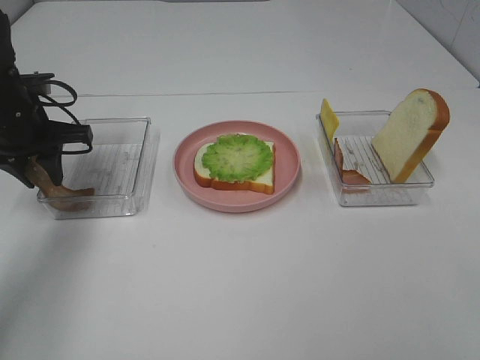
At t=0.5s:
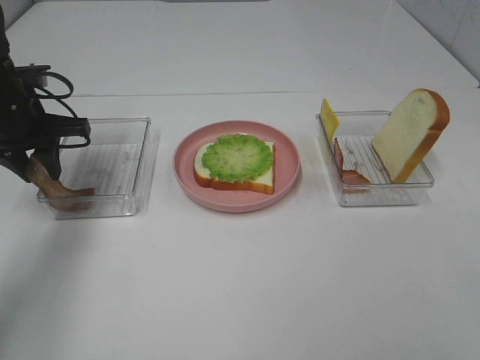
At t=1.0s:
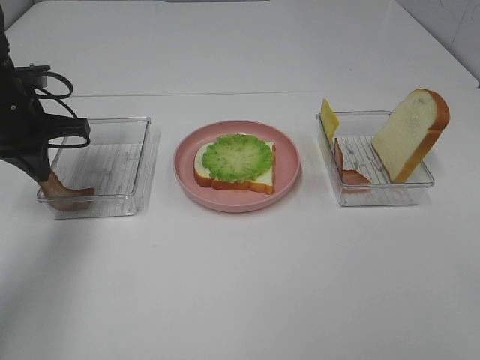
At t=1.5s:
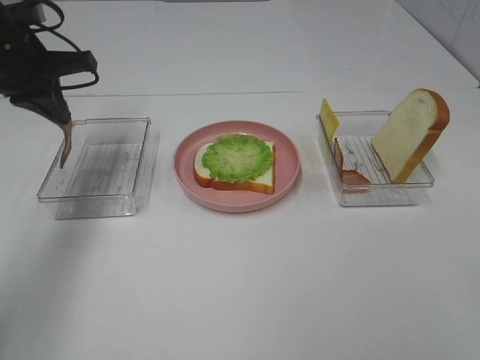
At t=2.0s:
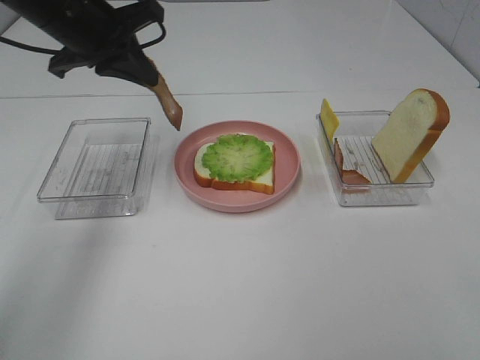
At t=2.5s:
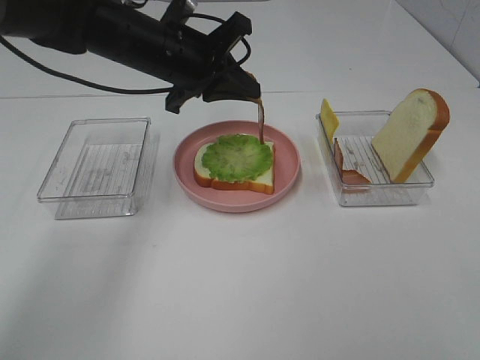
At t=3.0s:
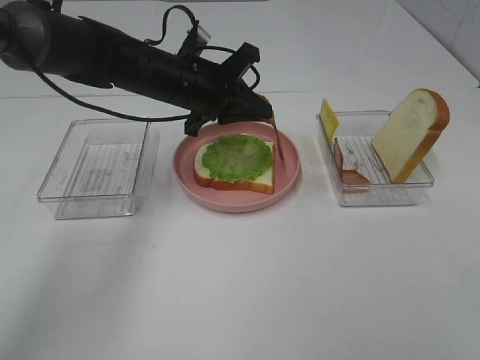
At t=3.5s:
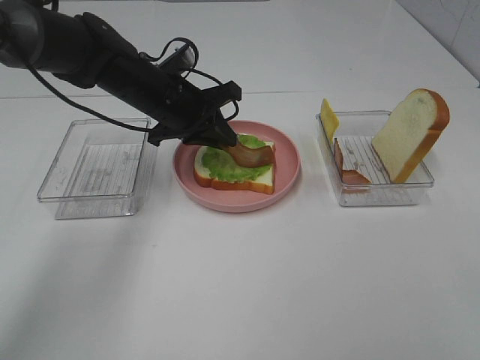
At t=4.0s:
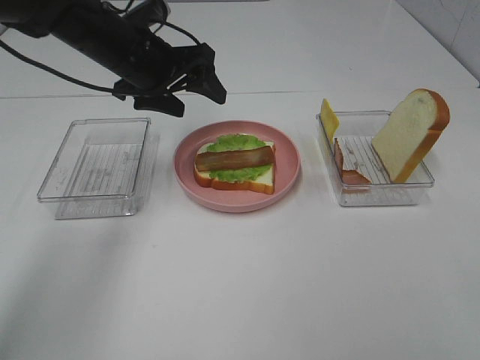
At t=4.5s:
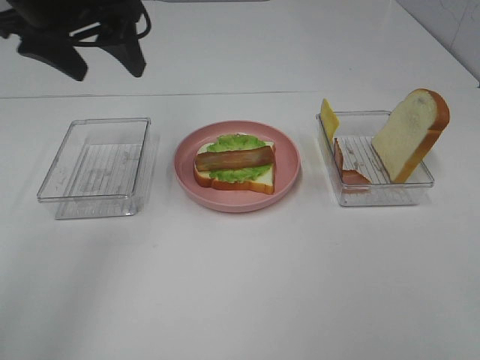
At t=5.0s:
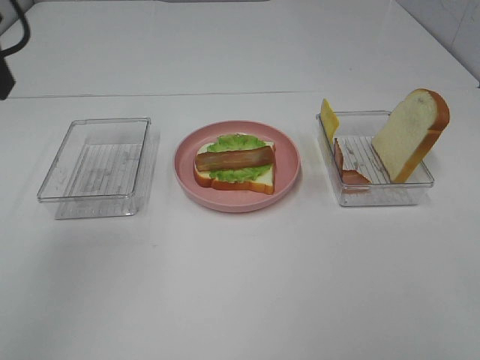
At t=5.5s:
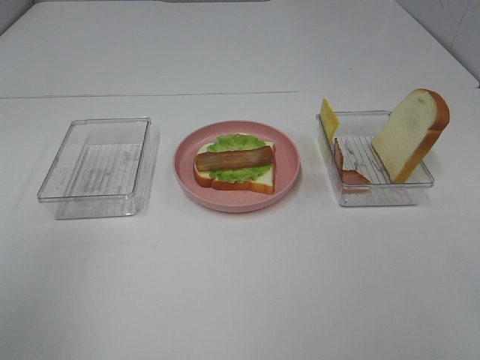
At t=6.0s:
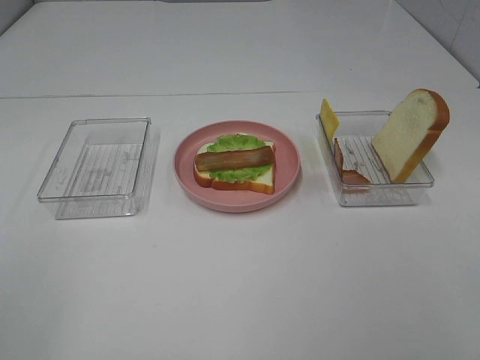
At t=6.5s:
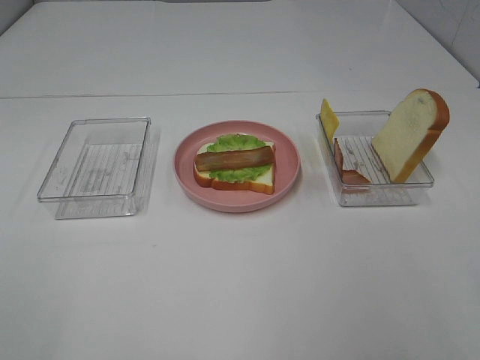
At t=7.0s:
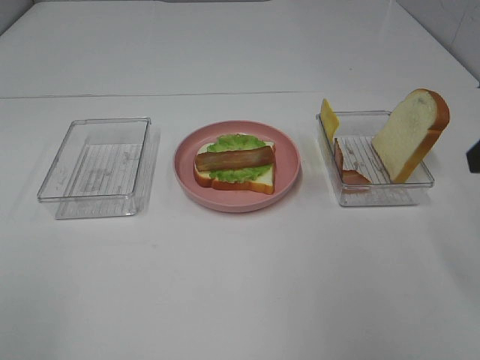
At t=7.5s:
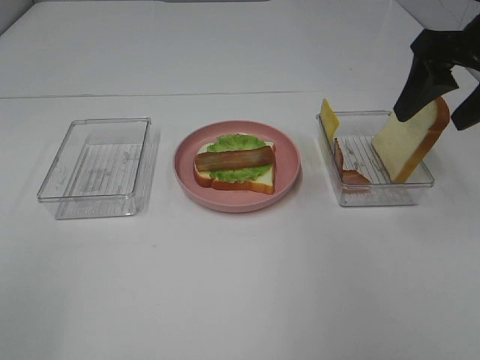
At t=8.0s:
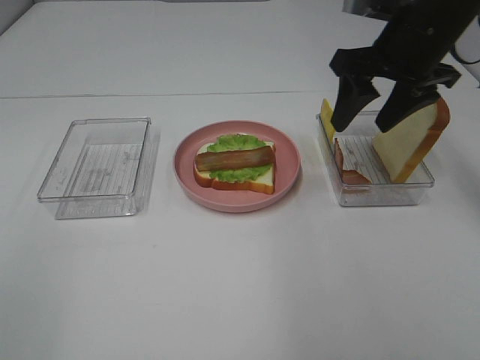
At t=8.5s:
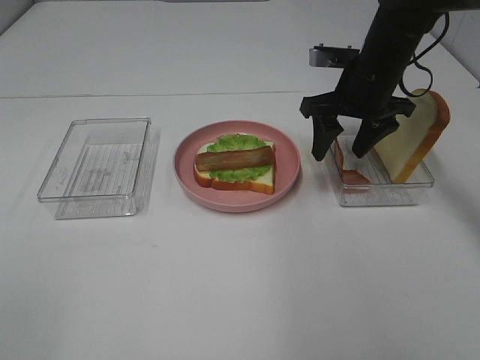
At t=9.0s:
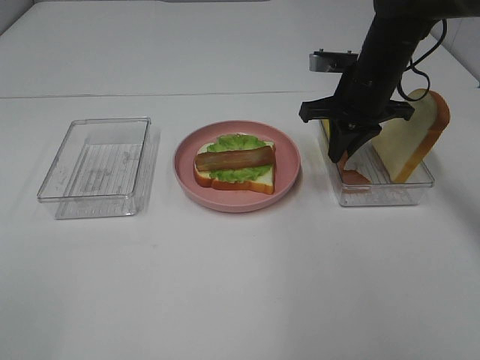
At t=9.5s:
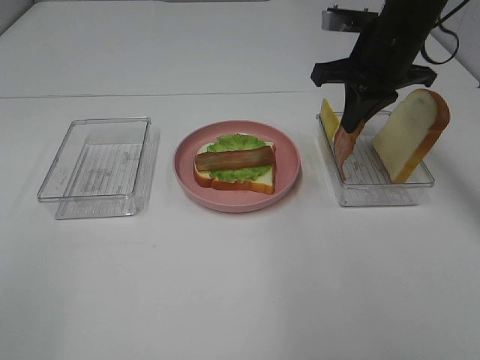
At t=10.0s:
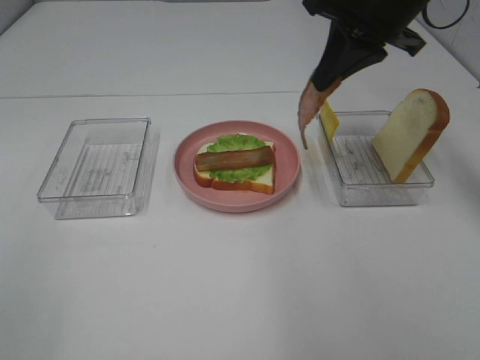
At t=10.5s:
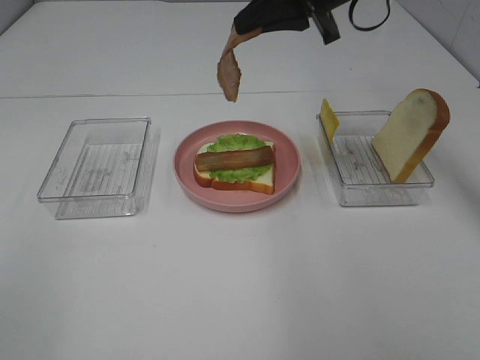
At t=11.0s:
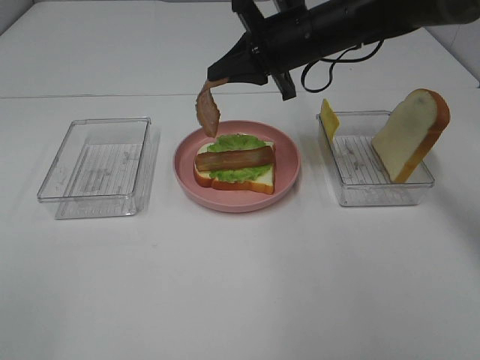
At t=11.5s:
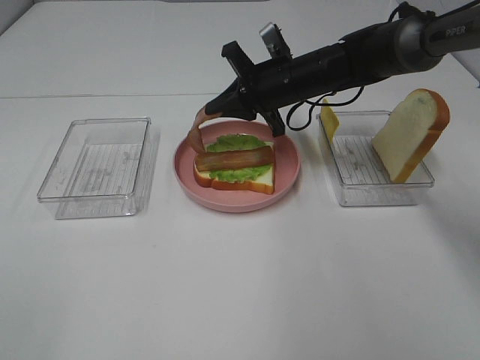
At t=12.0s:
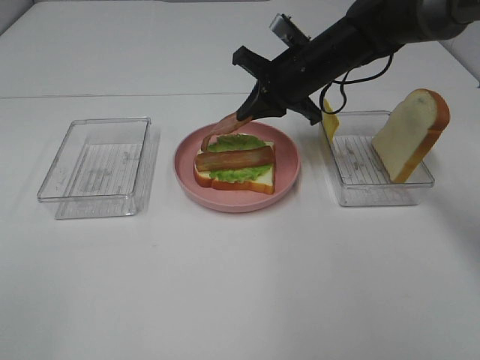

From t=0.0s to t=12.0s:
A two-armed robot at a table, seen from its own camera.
Task of the whole recording: Make sandwiches.
Step, from t=1.5s to t=3.5s: Left hand:place bacon on lettuce slice.
Step, from t=4.0s to t=9.0s: Right hand:grab the bacon.
From t=0.0s to t=2.0s: The left gripper goes approximately 15 cm upward and to the right, and closes.
From t=2.0s to t=4.0s: The left gripper opens its fingers.
From t=4.0s to t=6.0s: The left gripper shifts approximately 40 cm backward and to the left.
From t=6.0s to t=8.0s: The right gripper heads forward, covering approximately 35 cm.
From t=8.0s to t=10.0s: The right gripper closes.
From t=10.0s to t=12.0s: The right gripper heads downward and forward, covering some 15 cm.

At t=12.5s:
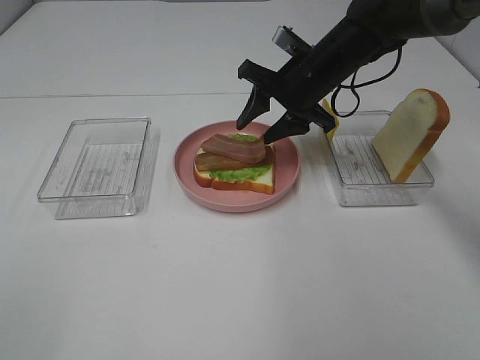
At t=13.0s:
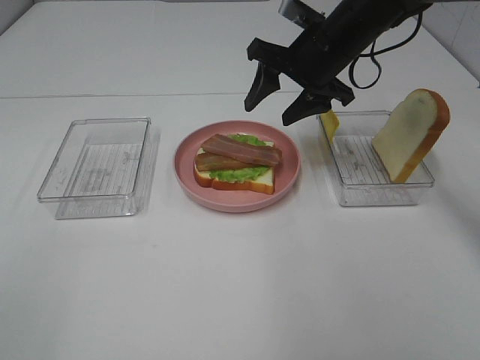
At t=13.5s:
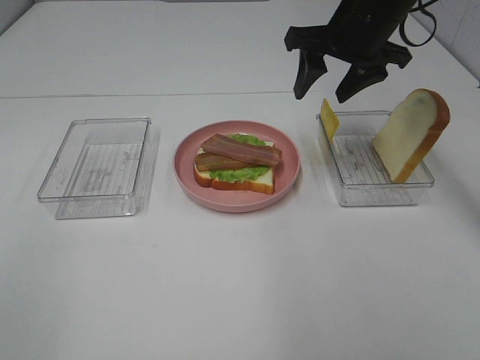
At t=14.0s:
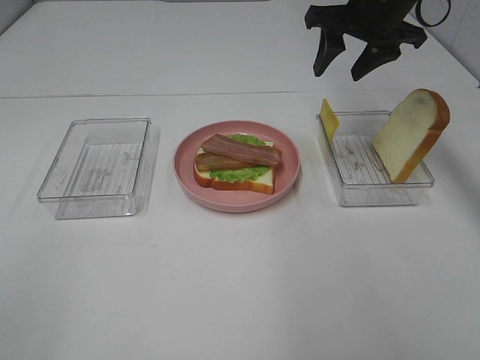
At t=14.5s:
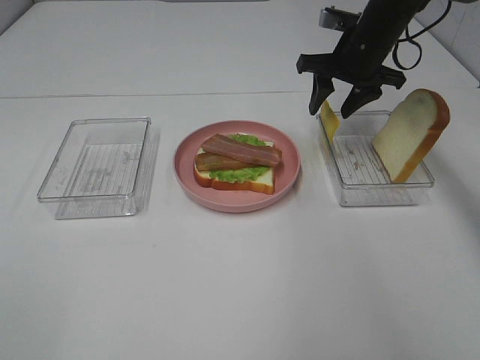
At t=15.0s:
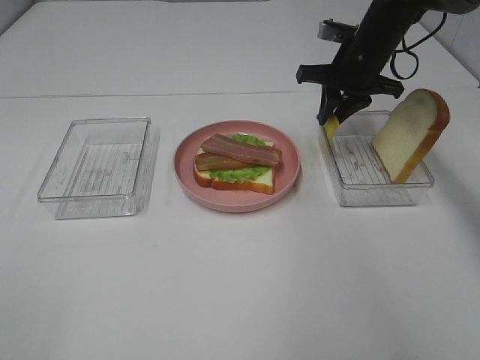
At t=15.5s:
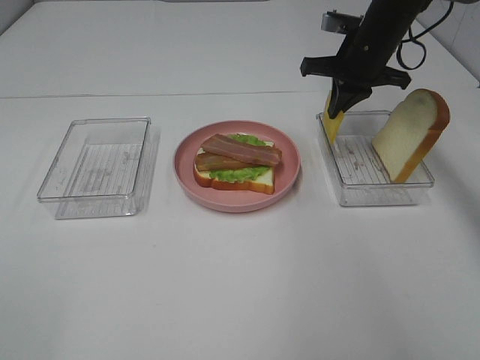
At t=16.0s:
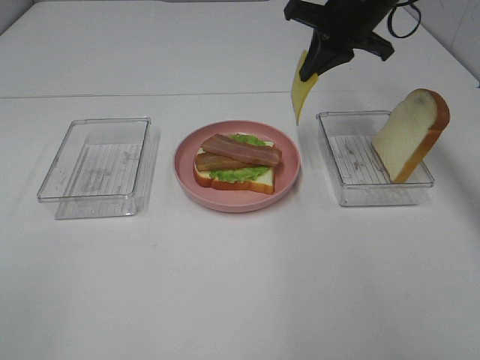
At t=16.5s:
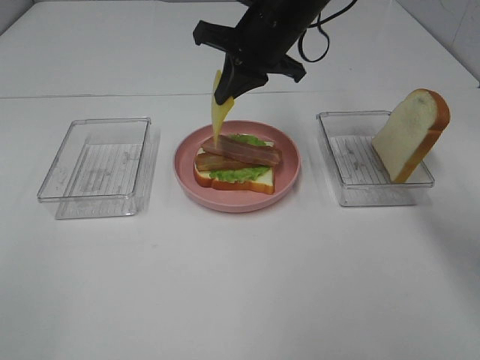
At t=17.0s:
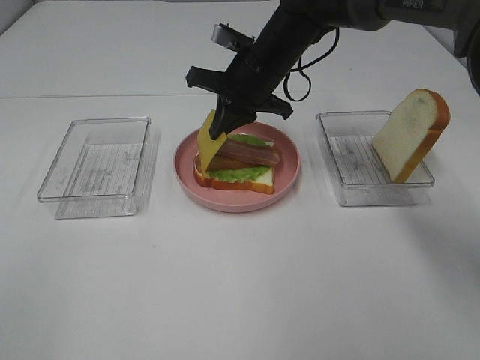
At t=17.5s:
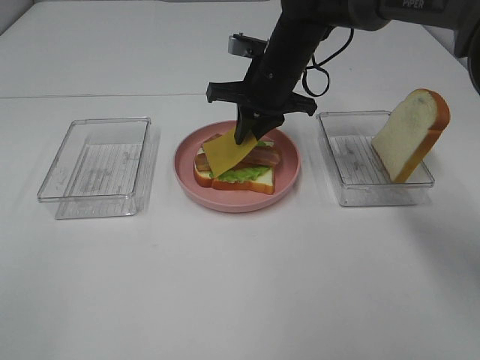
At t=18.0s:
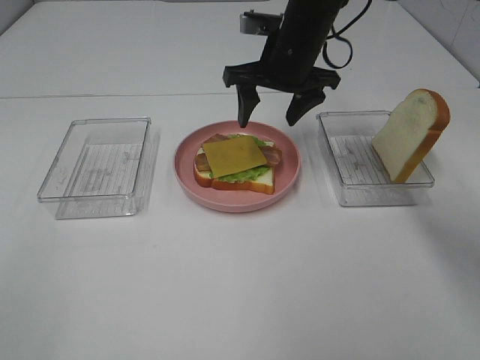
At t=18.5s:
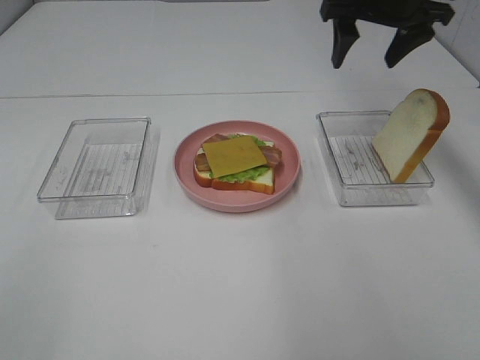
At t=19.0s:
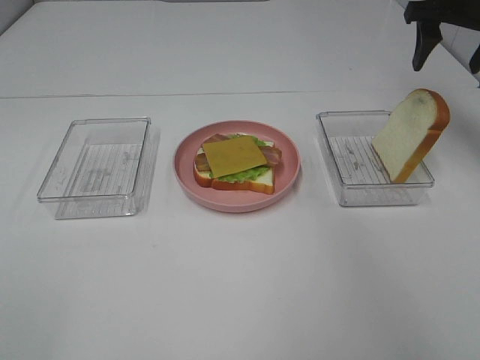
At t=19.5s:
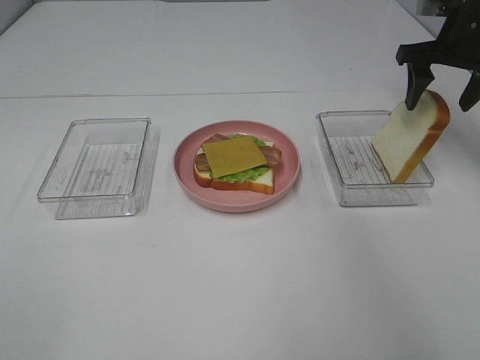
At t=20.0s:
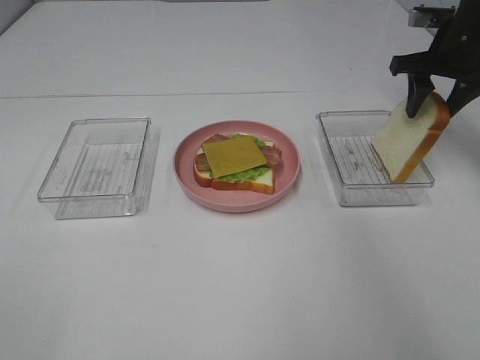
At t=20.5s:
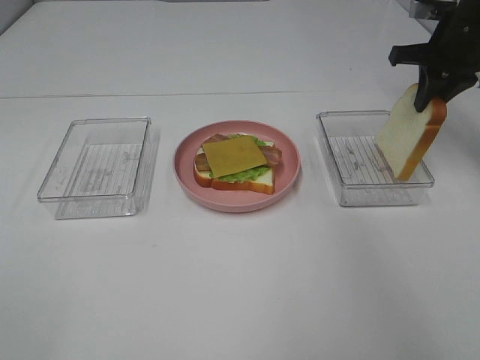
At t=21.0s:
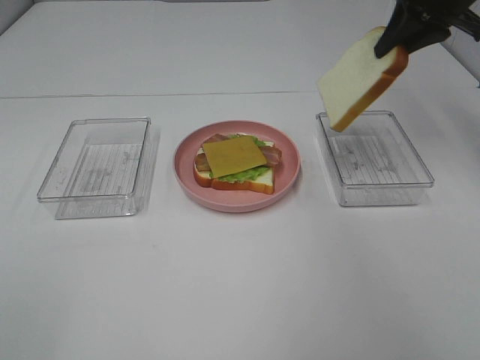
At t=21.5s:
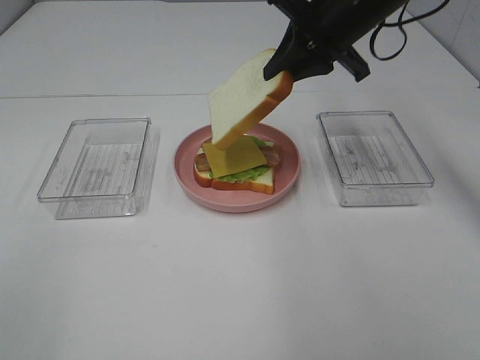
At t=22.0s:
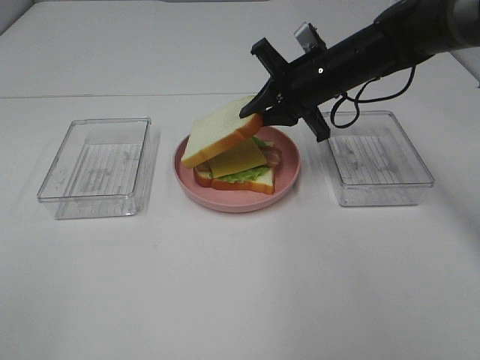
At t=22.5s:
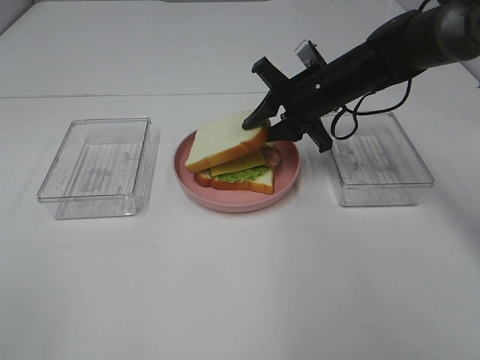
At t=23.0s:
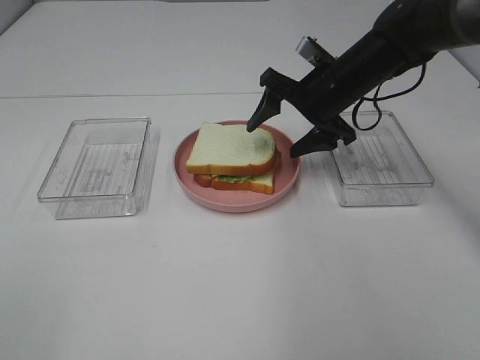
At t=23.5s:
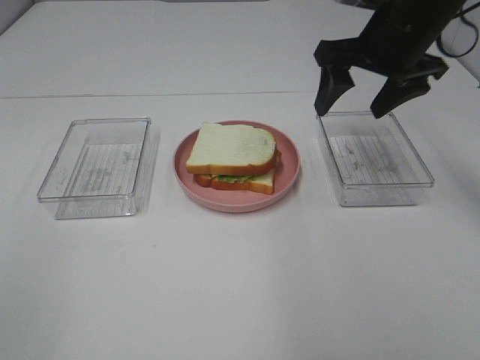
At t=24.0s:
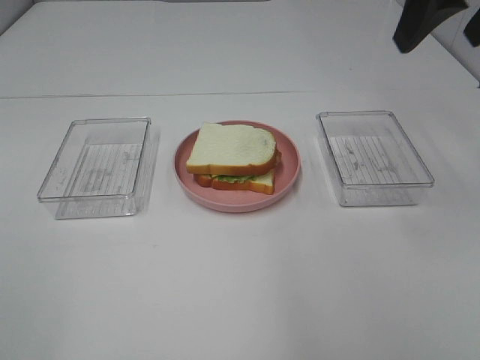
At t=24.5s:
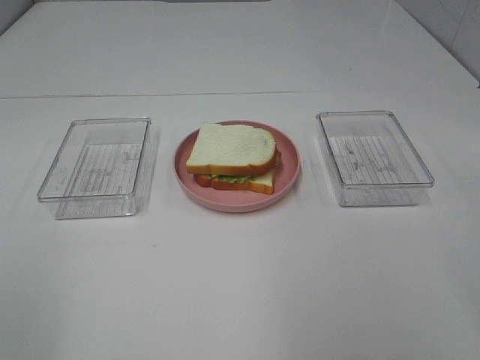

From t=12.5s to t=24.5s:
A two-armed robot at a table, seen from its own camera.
Task of the whole recording: Make sandwiches.
Step, from t=13.5s to t=15.5s: Right hand:grab the cheese slice.
Step, from t=16.0s to t=17.5s: Right hand:place the cheese slice on top of the bacon.
Step, from t=18.0s to t=20.0s: Right hand:grab the bread slice.
Step, from t=20.5s to t=22.5s: Right hand:place the bread slice on the cheese slice.
From t=12.5s to t=14.5s: The right gripper goes about 5 cm to the right, and goes upward and returns, some 10 cm each way.
From t=14.5s to t=16.5s: The right gripper moves to the left and backward, approximately 15 cm, and closes.
From t=16.5s to t=18.5s: The right gripper shifts roughly 15 cm to the right, and opens.
From t=18.5s to t=20.5s: The right gripper shifts about 10 cm to the right and downward, and closes.
From t=20.5s to t=22.5s: The right gripper moves to the left and downward, some 20 cm.
From t=22.5s to t=24.5s: The right gripper shifts roughly 40 cm backward, upward and to the right, and opens up.

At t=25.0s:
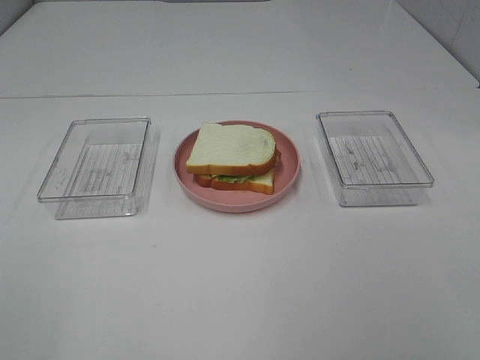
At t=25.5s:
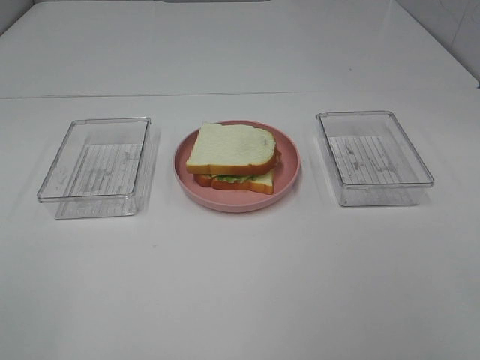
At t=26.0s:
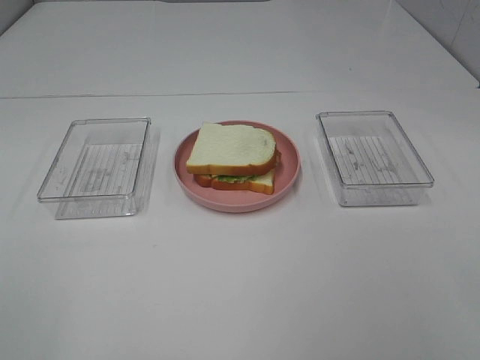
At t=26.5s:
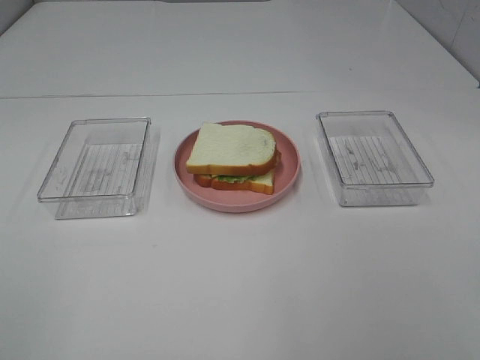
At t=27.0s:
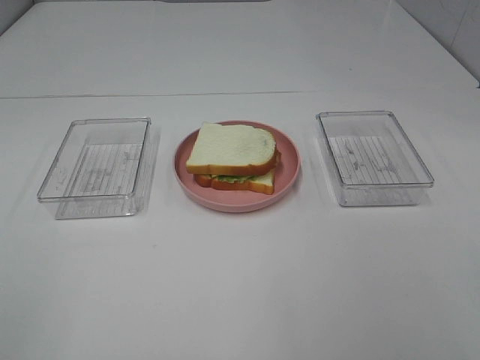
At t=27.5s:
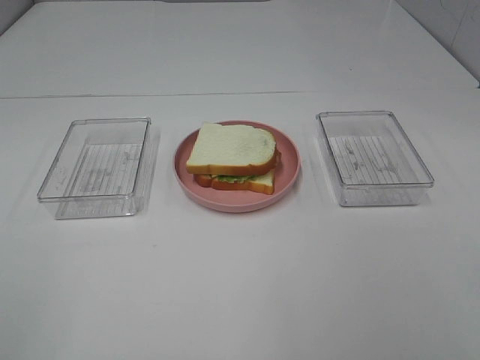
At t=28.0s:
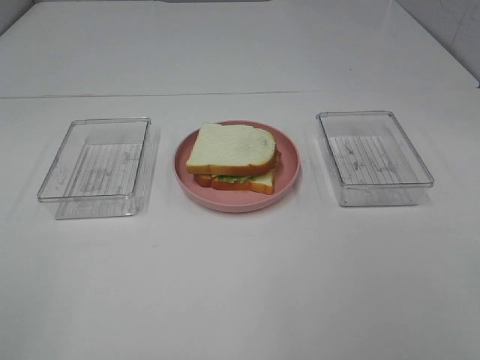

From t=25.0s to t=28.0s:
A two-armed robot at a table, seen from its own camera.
Task of the whole recording: Make sandwiches.
From t=26.5s to t=28.0s: Both grippers stay about where they are.
